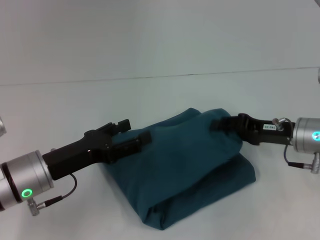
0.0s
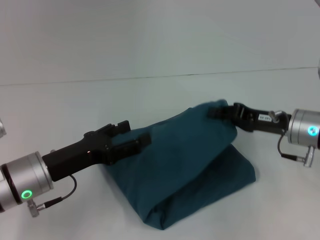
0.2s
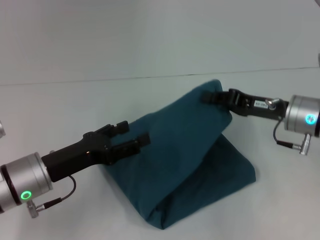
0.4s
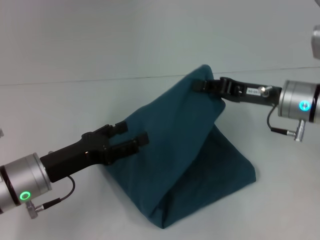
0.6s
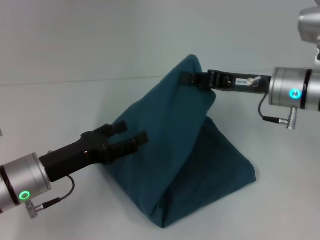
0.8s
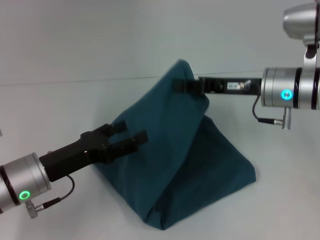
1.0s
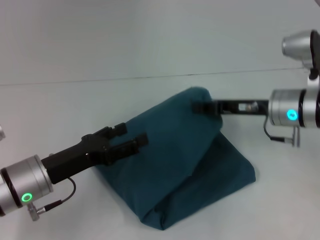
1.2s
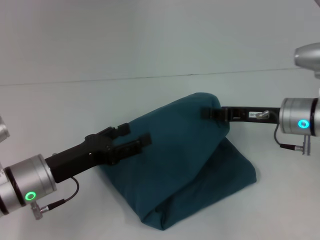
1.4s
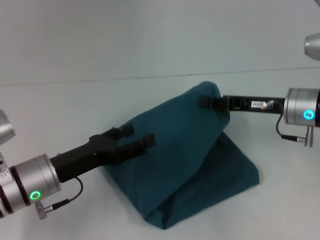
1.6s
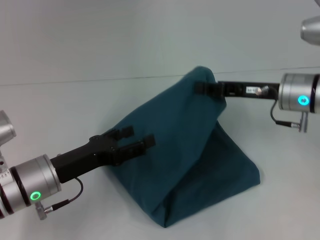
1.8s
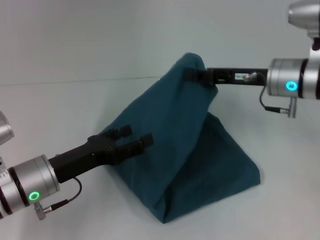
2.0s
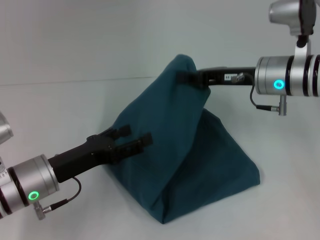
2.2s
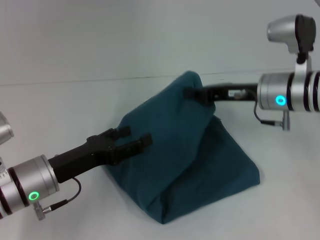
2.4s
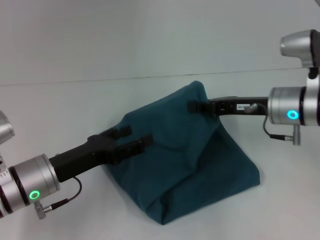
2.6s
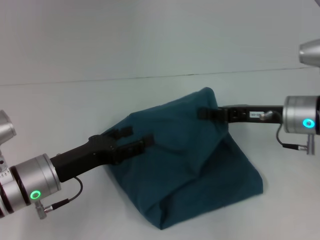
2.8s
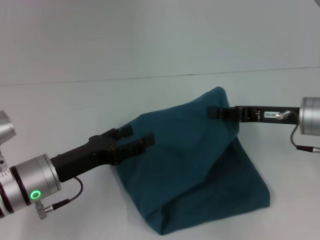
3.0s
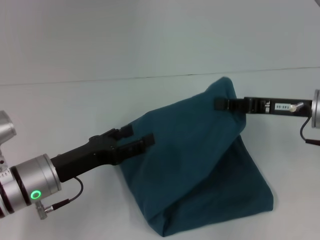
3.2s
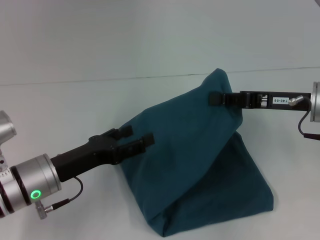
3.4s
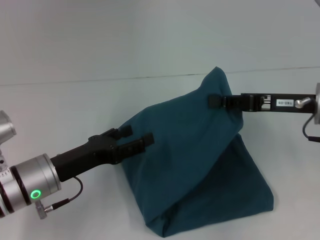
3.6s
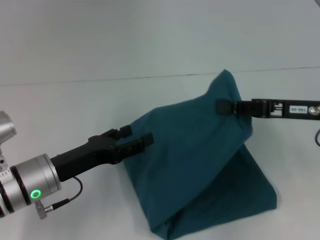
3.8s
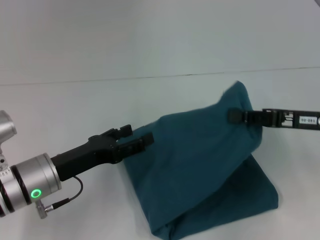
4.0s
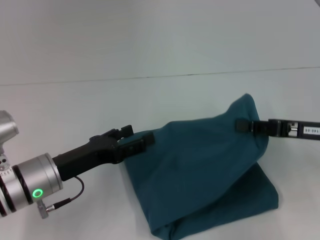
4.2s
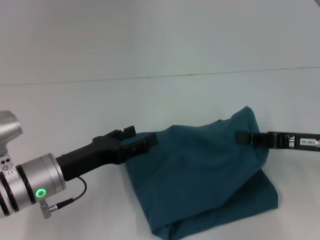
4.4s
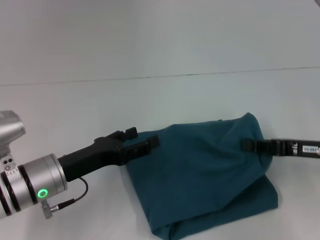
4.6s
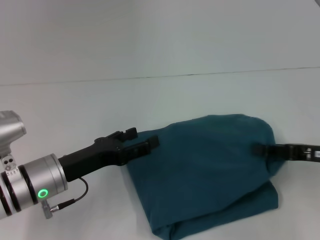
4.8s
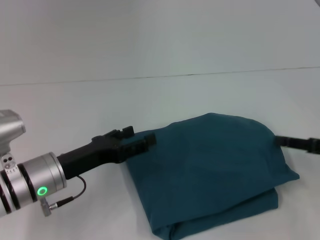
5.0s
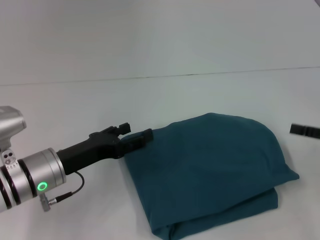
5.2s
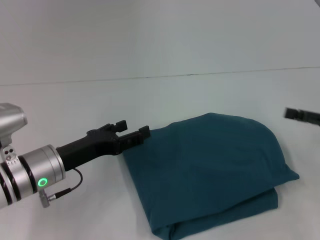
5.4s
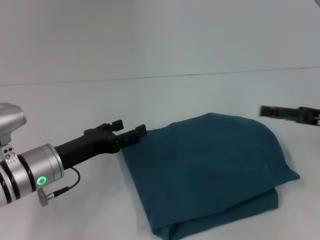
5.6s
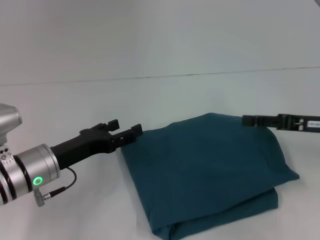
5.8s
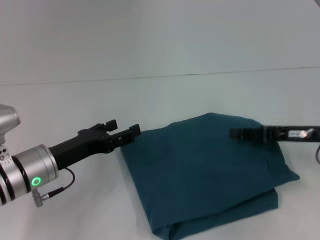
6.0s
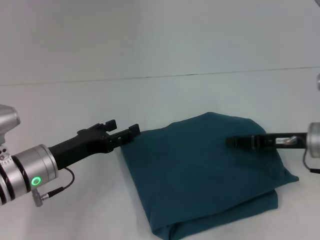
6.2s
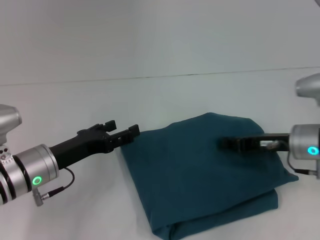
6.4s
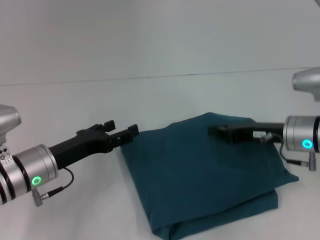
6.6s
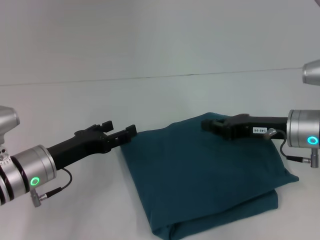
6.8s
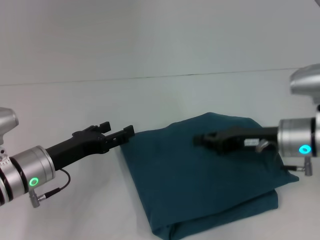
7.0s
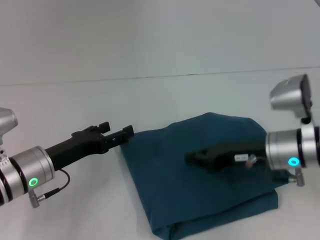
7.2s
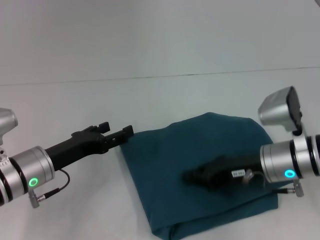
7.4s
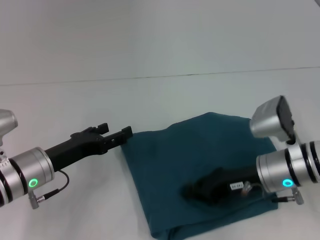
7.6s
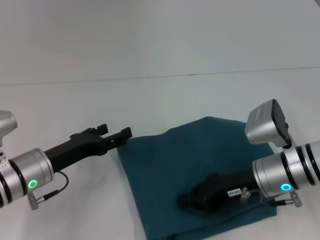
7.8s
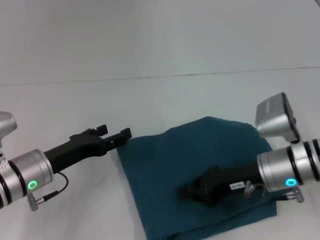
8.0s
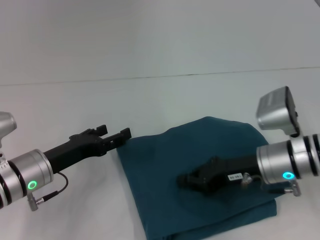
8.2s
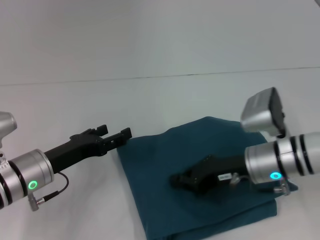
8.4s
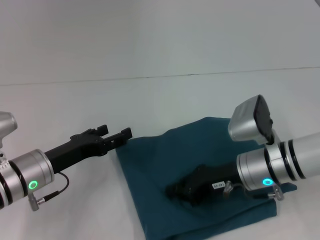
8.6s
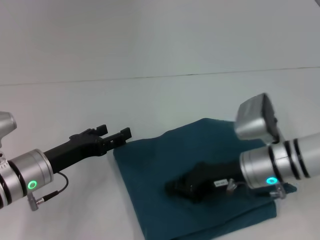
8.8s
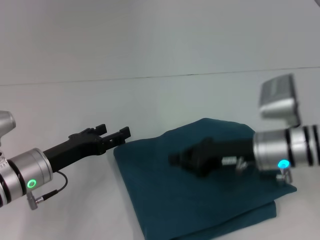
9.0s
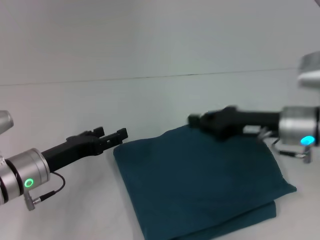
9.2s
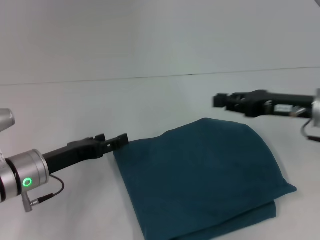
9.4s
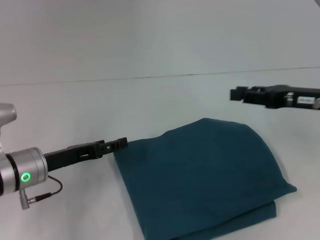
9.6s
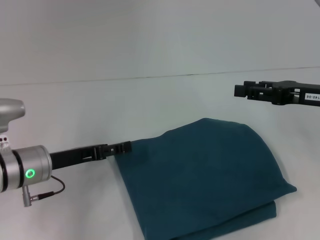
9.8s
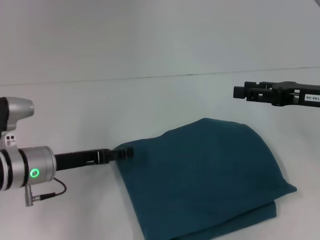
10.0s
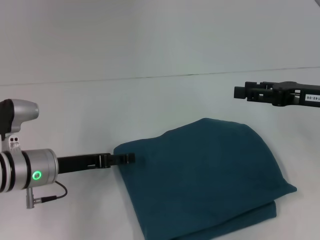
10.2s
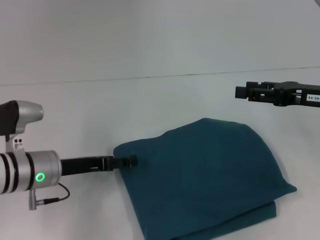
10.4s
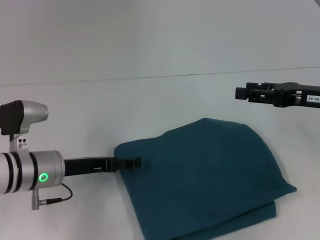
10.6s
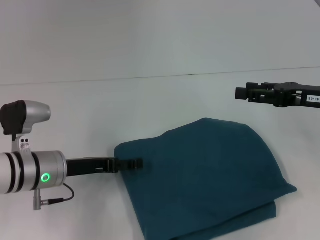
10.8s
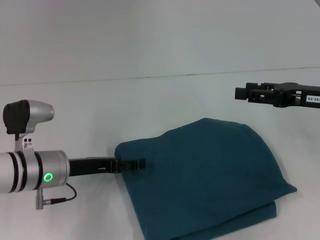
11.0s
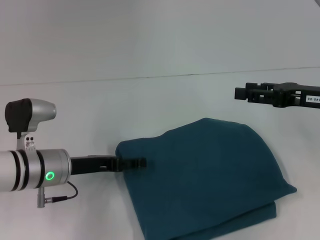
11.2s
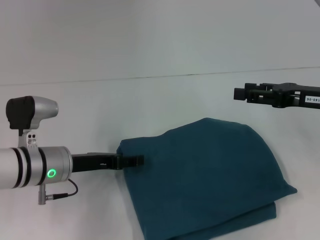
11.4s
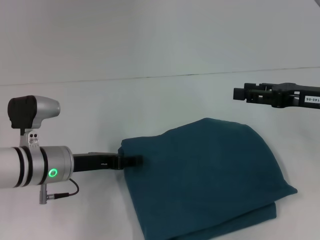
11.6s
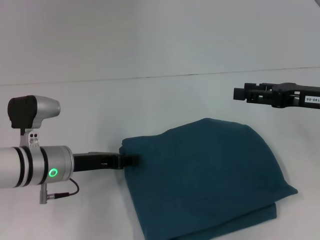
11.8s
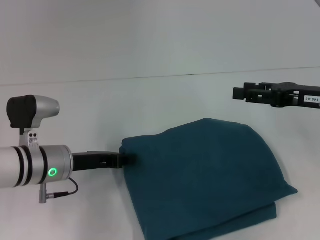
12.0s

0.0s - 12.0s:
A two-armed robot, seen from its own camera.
0.0s - 1.6s: The right gripper closes.
3.0s - 4.4s: The right gripper changes place by some 5 cm.
4.4s - 6.0s: The right gripper travels to the right and back again, some 10 cm each way, and opens its fingers.
6.0s - 7.6s: The right gripper shifts roughly 10 cm to the left, and closes up.
7.6s - 9.0s: There are only small adjustments of the grippers.
9.0s - 10.4s: The right gripper moves to the right and upward, some 15 cm, and opens up.
10.4s - 12.0s: The left gripper closes up.

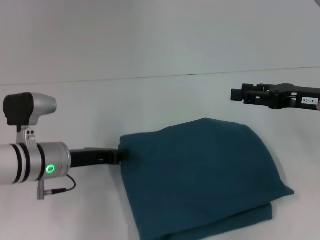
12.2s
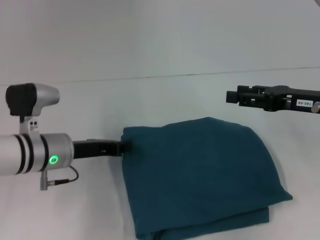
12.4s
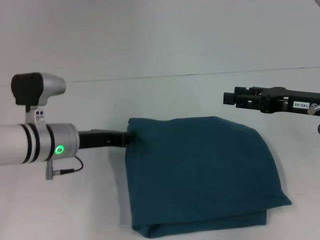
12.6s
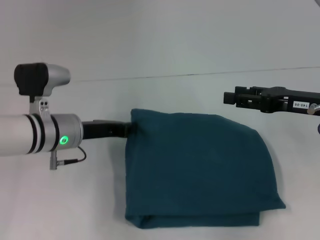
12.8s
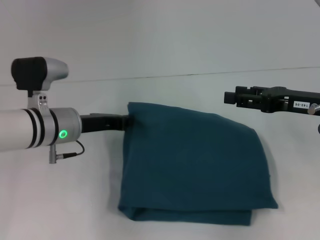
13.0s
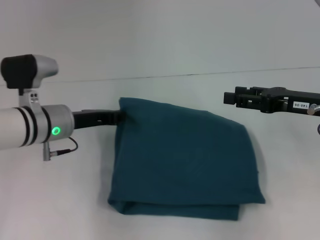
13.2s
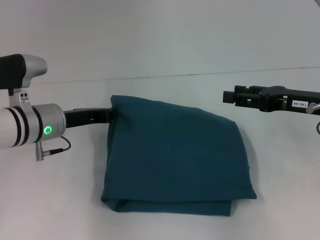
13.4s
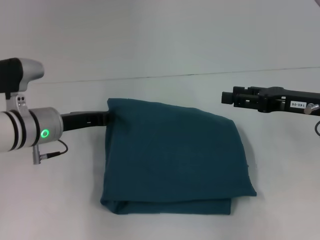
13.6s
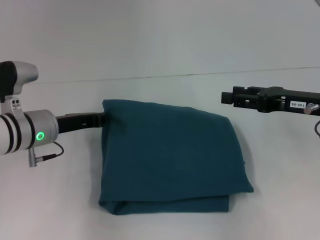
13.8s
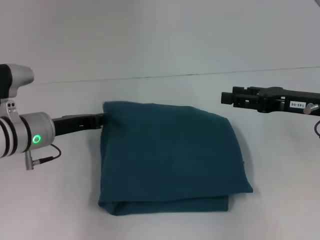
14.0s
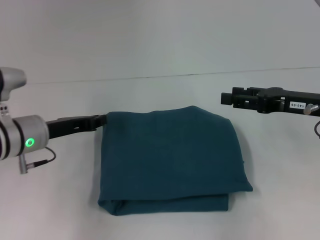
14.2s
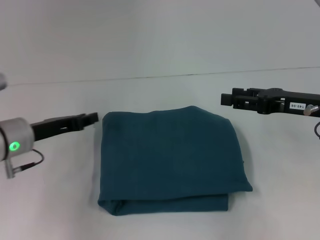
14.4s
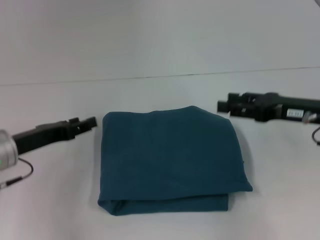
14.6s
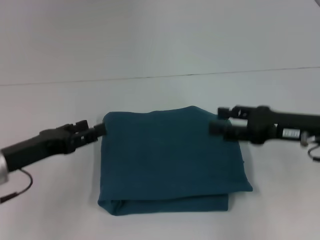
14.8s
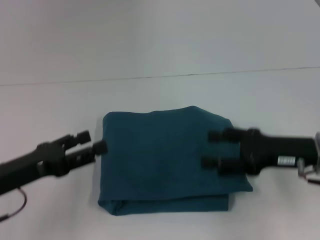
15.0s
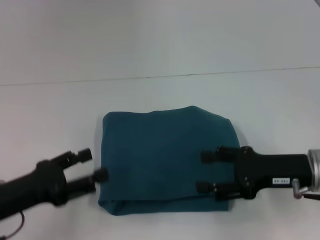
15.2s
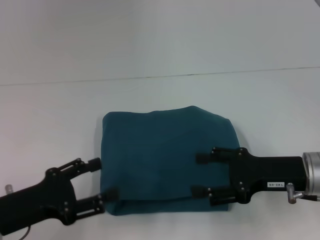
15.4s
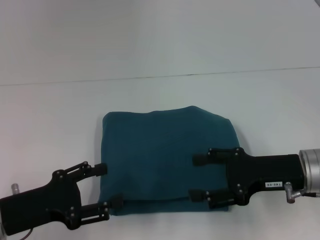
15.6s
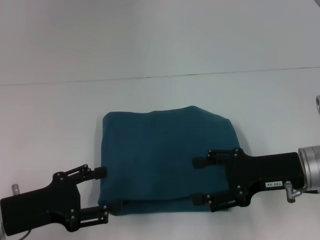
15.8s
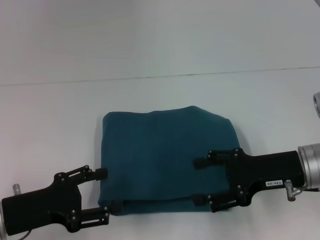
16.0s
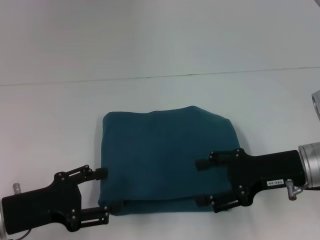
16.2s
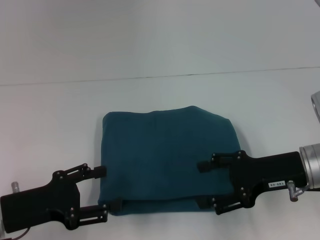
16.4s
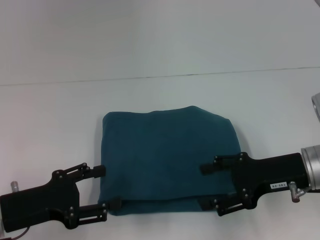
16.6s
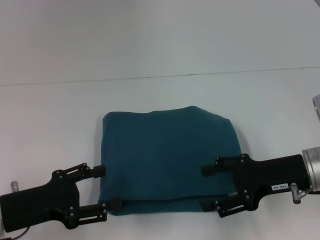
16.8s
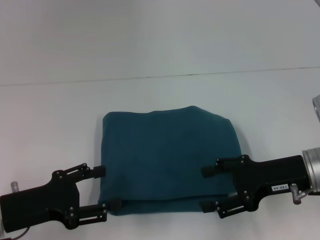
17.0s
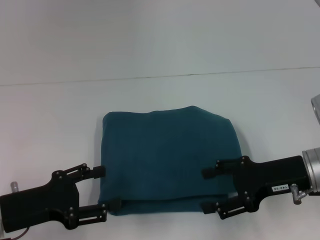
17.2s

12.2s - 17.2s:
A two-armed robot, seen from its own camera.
13.8s - 15.6s: The right gripper shifts some 10 cm backward and to the left. The left gripper is displaced backward by approximately 15 cm, and opens.
15.6s - 17.2s: The grippers stay close to where they were, moving slightly.
